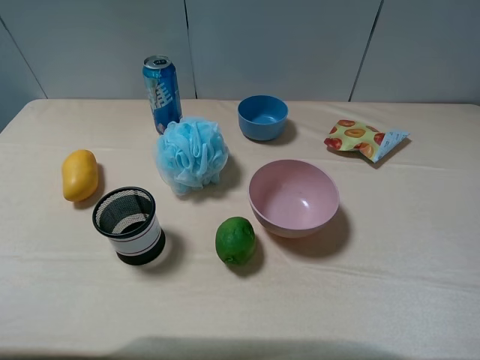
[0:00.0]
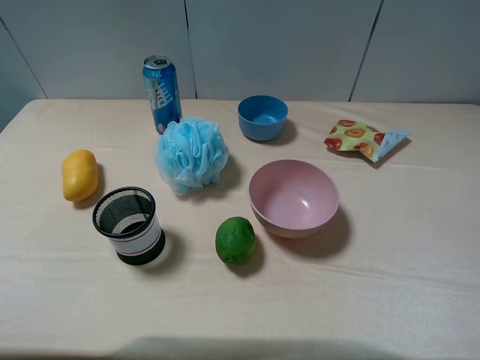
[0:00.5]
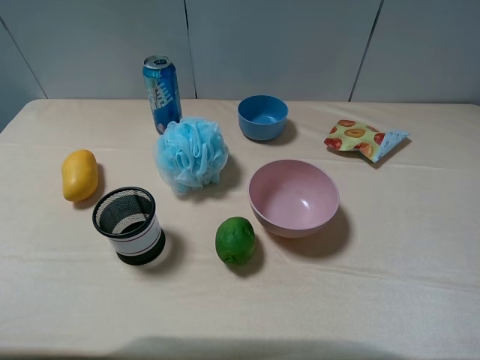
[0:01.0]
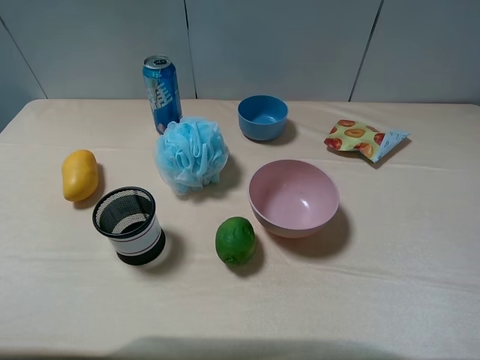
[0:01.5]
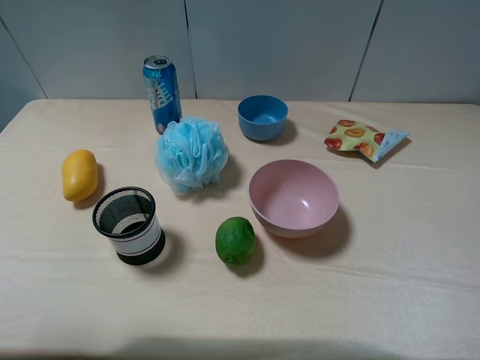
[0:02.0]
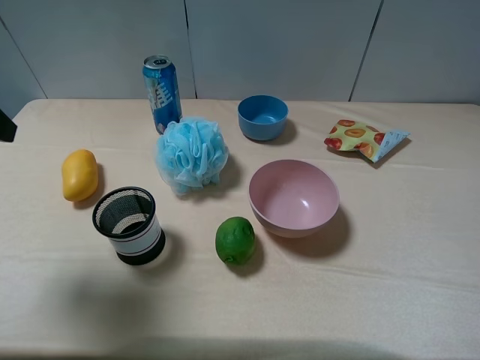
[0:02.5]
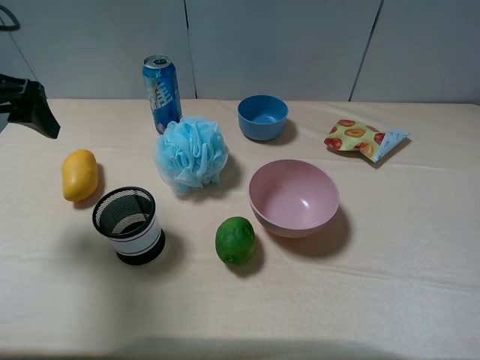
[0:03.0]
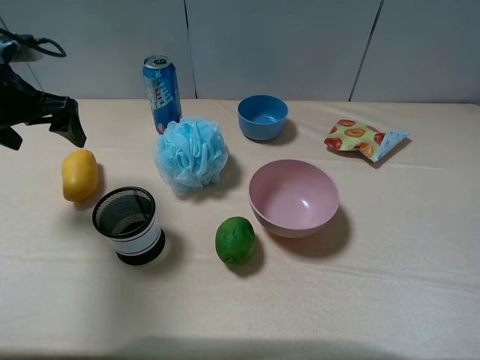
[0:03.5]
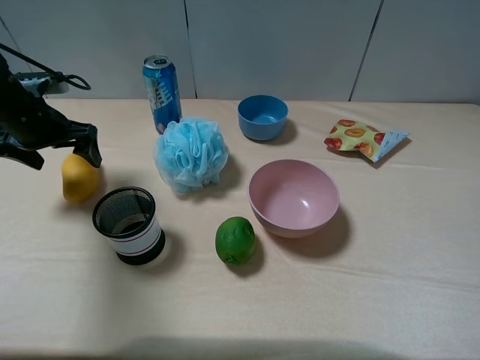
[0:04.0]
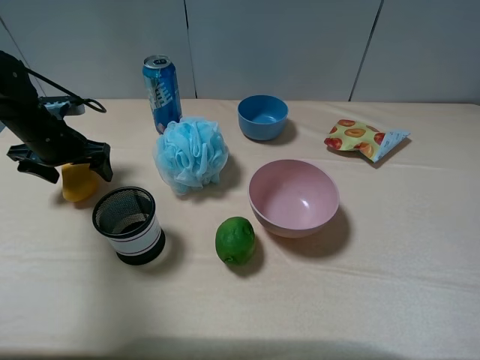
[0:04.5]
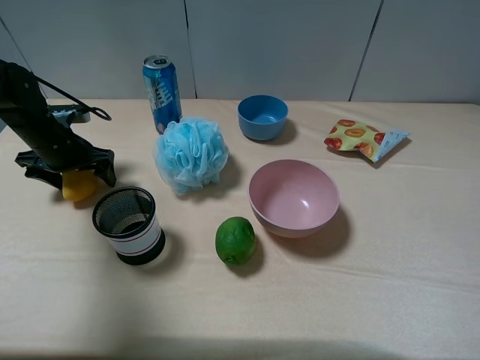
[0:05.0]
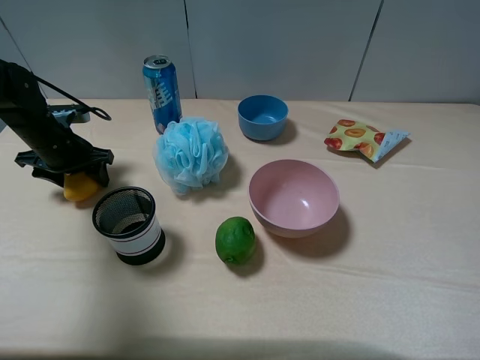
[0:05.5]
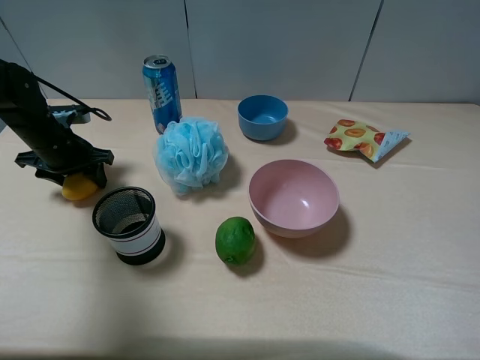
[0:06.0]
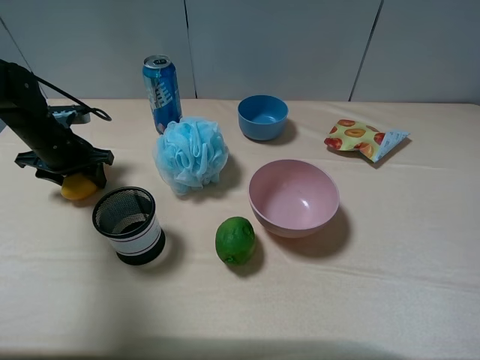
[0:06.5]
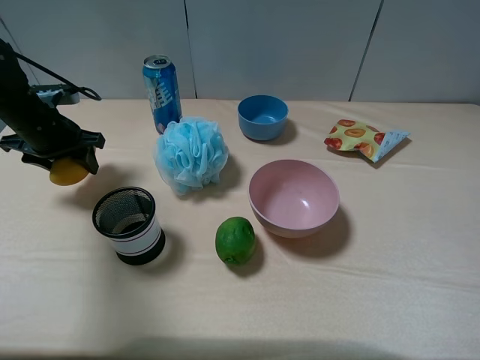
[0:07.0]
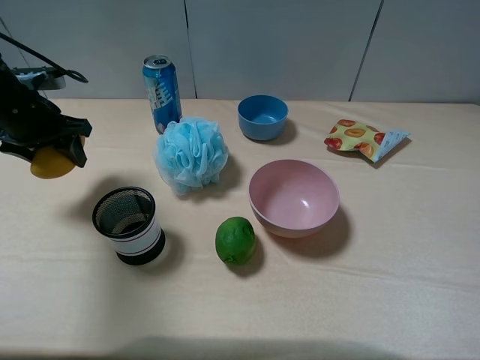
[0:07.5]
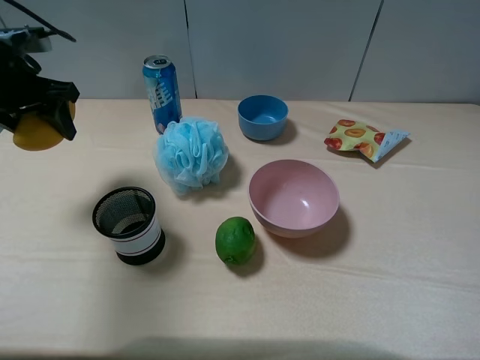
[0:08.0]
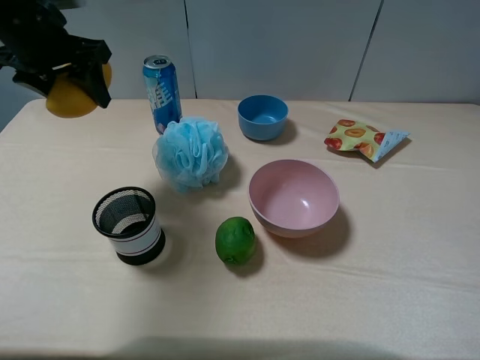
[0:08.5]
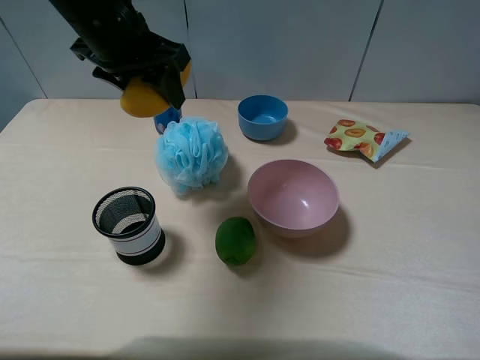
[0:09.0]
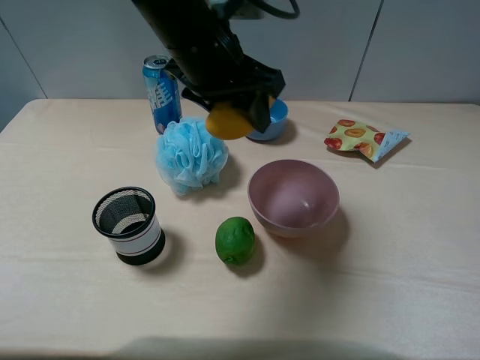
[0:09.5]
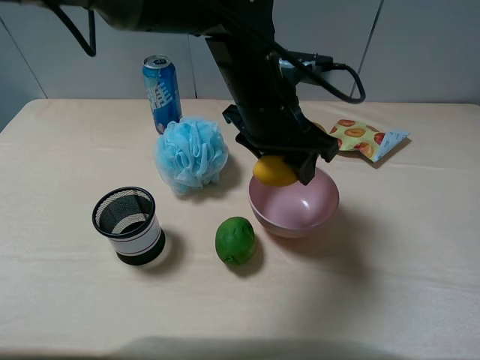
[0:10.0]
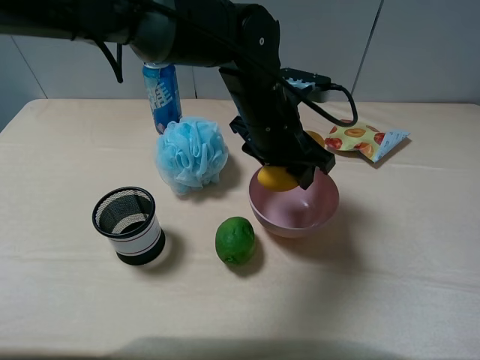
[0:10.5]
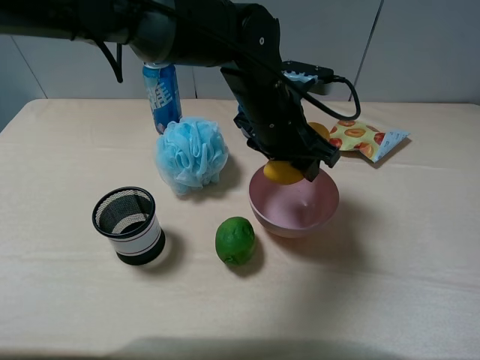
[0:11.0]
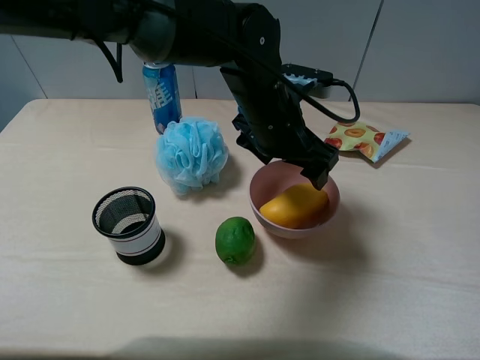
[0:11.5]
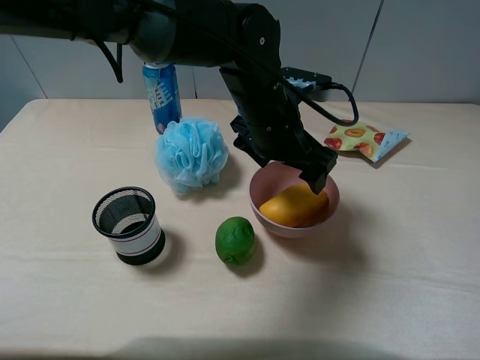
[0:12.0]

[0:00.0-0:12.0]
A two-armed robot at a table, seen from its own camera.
Task of the whole recording: pick up an item with a gripper and place it in a random container on the table.
Step, 0:00.0 to 0:06.0: Grasp the yellow lemon with the left gripper.
Step, 0:06.5 to 0:11.5: Place the yellow lemon into the pink bowl with the left gripper.
0:02.0 to 0:04.0: The left gripper shifts some 30 cm forward and downward.
0:04.0 to 0:06.0: The left gripper is displaced downward by approximately 10 cm, and closes.
0:06.0 to 0:08.0: The left gripper shifts about 15 cm upward.
0:08.0 to 0:10.0: The left gripper travels to the right by some 35 cm.
0:10.0 to 0:12.0: The left gripper opens.

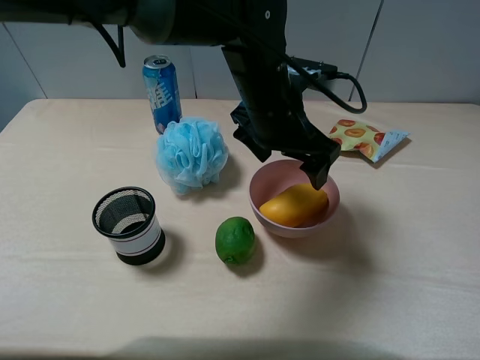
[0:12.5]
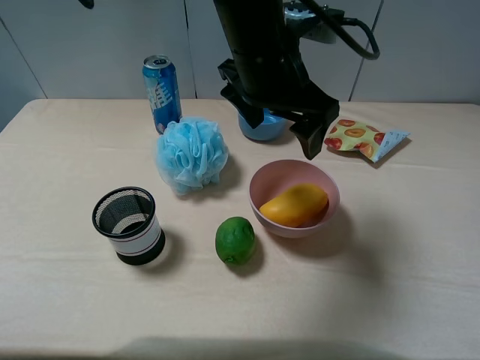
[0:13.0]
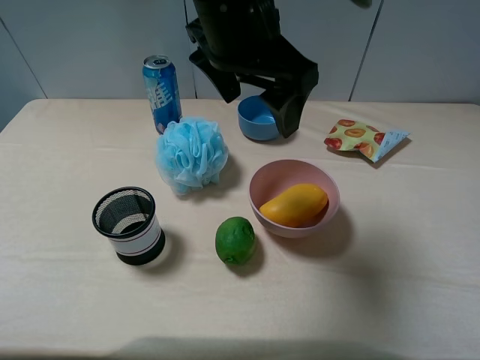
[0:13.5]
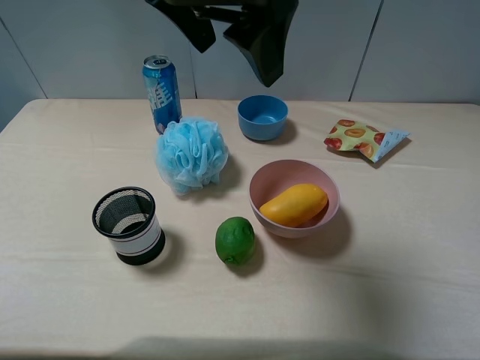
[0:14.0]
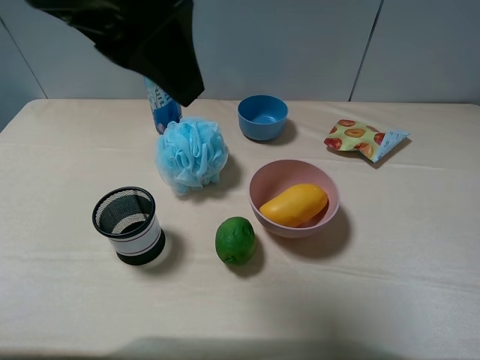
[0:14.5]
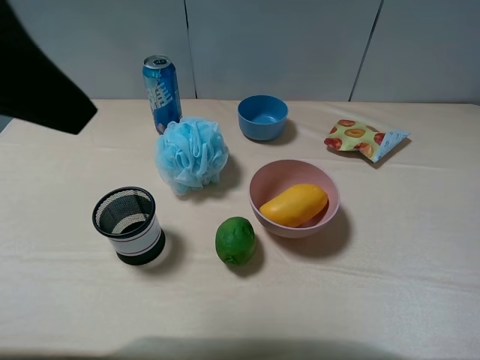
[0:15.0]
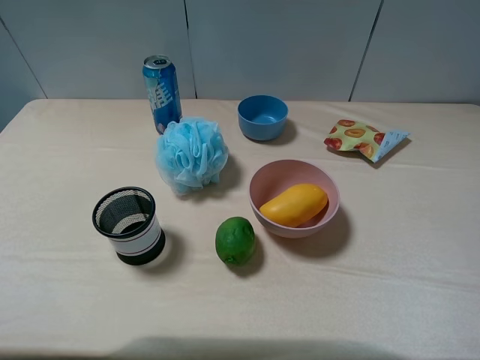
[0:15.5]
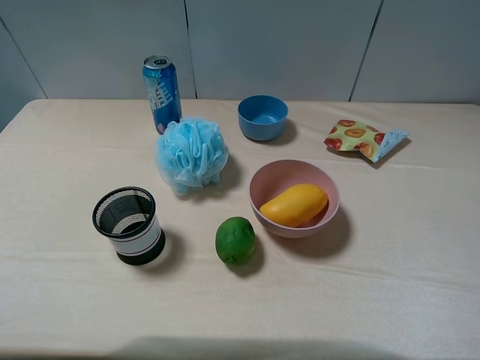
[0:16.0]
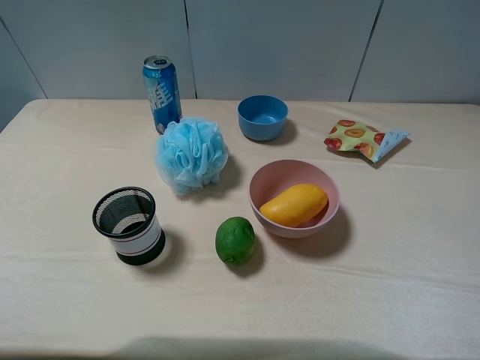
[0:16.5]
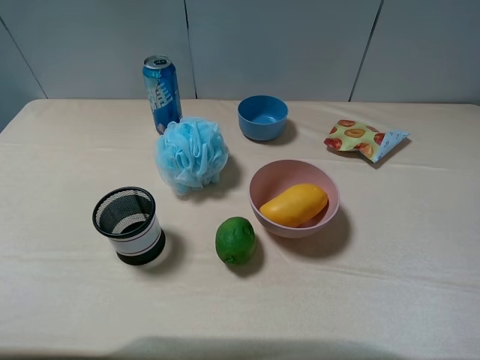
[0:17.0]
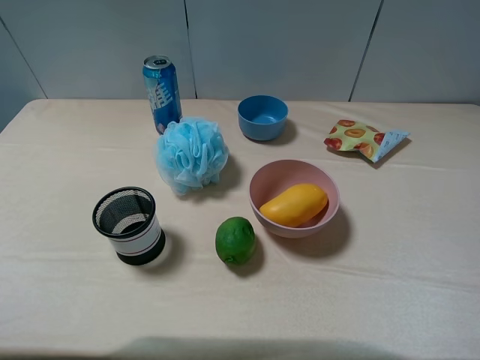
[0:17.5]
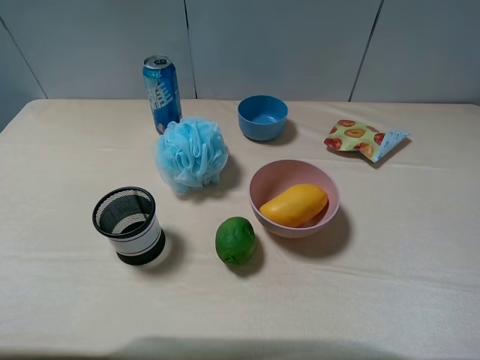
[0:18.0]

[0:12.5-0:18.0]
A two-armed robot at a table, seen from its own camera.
Task of the whole recording: pick up an item with a gripper and place it in a random container on the table.
0:12.5 to 0:14.5: The left gripper travels upward, to the left and backward by some 25 cm.
0:14.5 to 0:16.0: The left gripper is displaced to the left and backward by some 25 cm.
